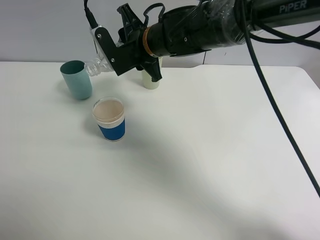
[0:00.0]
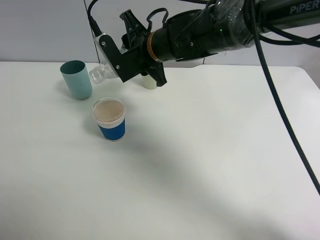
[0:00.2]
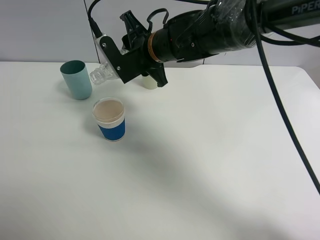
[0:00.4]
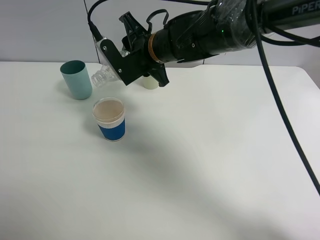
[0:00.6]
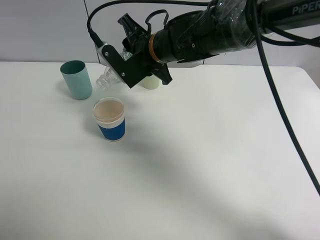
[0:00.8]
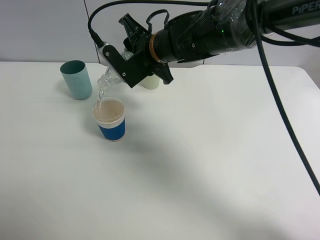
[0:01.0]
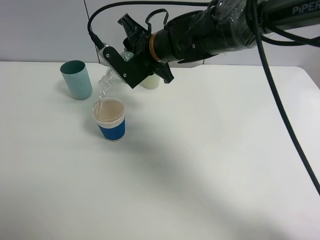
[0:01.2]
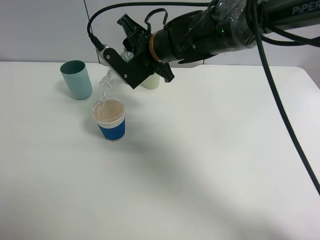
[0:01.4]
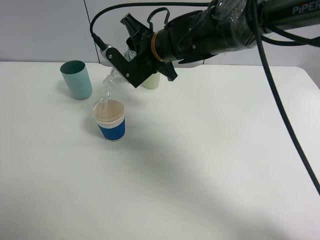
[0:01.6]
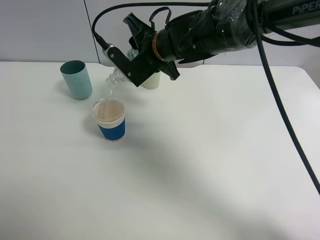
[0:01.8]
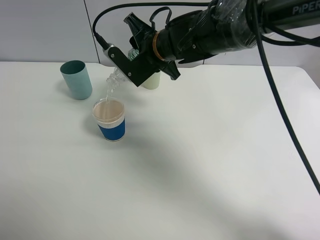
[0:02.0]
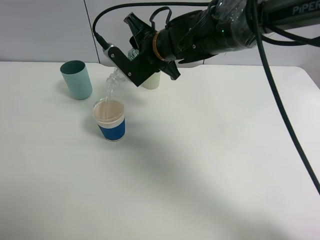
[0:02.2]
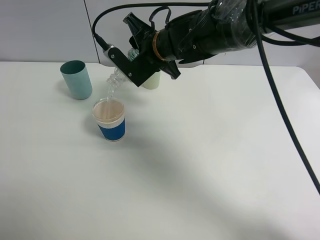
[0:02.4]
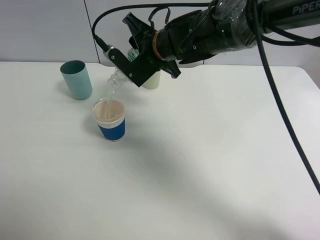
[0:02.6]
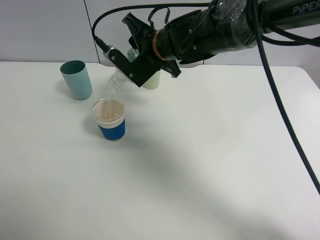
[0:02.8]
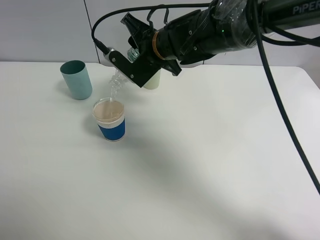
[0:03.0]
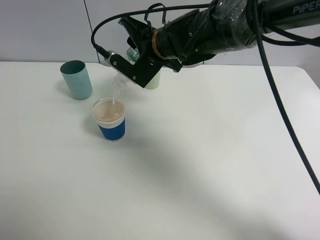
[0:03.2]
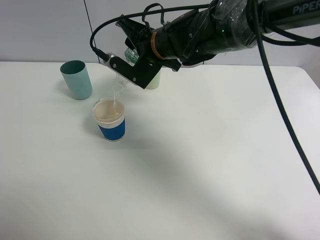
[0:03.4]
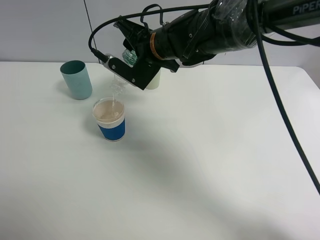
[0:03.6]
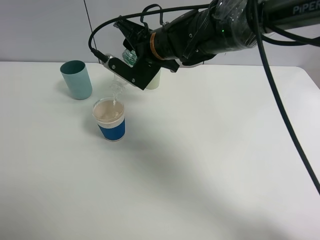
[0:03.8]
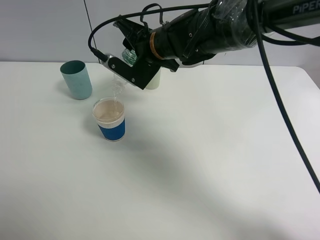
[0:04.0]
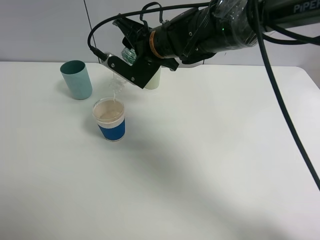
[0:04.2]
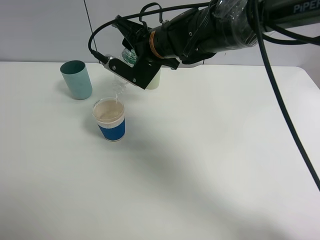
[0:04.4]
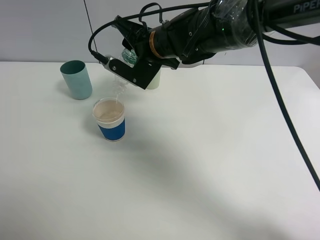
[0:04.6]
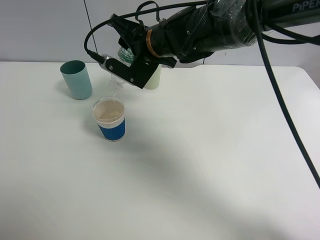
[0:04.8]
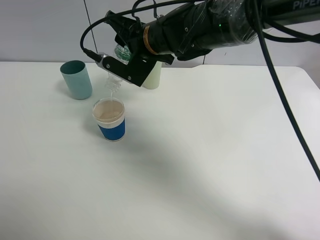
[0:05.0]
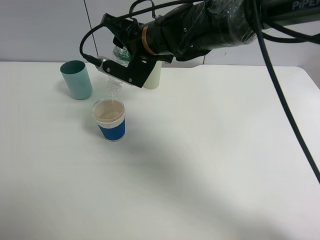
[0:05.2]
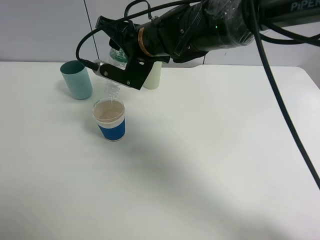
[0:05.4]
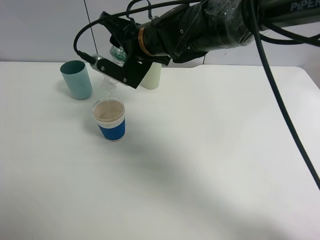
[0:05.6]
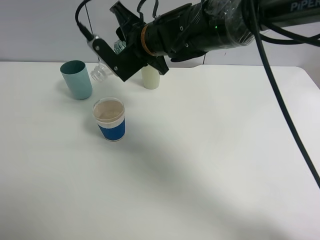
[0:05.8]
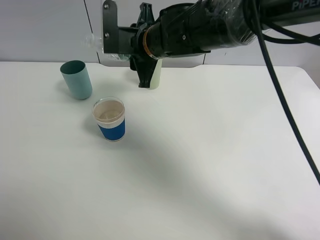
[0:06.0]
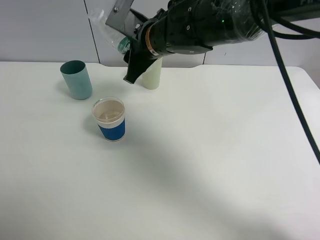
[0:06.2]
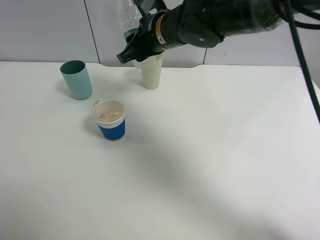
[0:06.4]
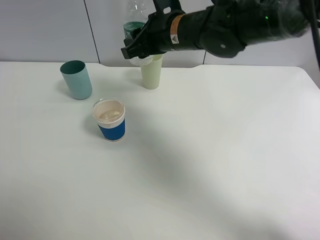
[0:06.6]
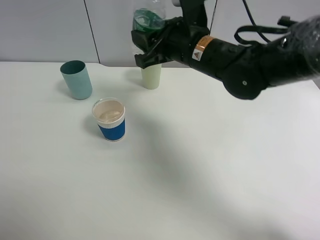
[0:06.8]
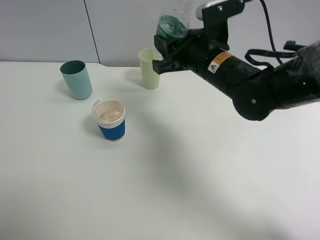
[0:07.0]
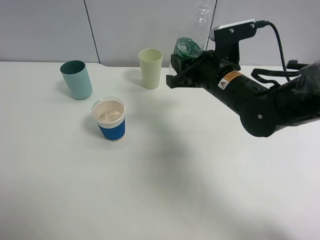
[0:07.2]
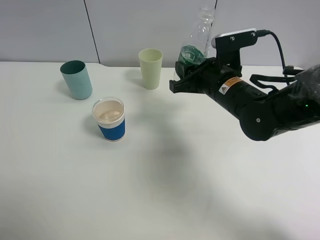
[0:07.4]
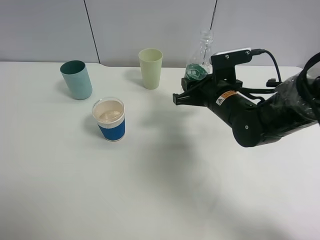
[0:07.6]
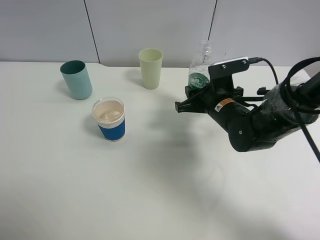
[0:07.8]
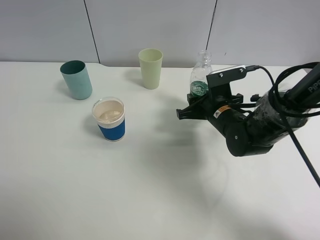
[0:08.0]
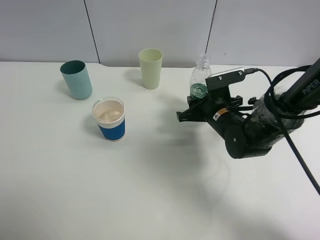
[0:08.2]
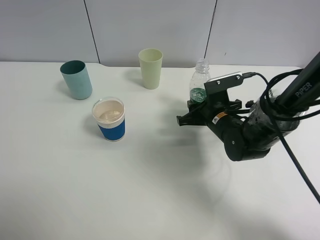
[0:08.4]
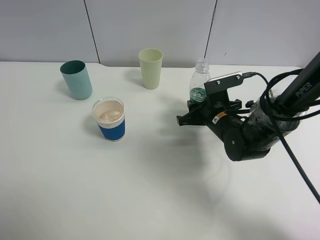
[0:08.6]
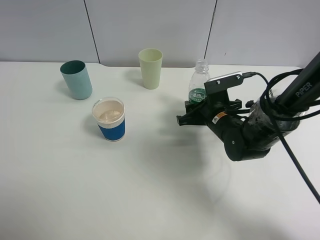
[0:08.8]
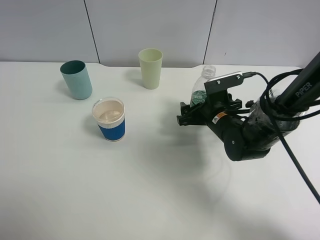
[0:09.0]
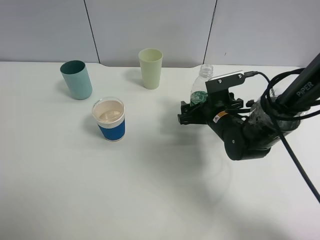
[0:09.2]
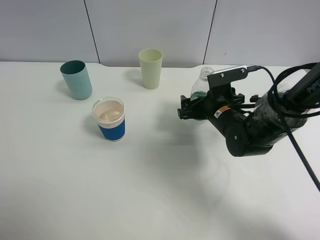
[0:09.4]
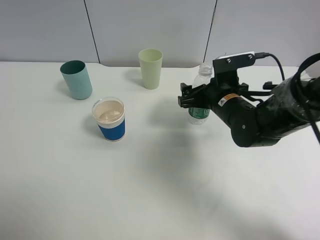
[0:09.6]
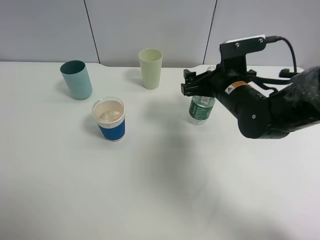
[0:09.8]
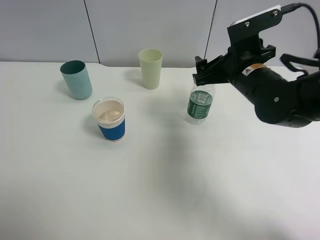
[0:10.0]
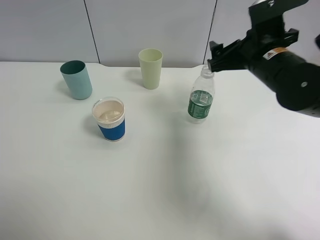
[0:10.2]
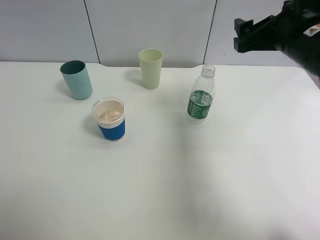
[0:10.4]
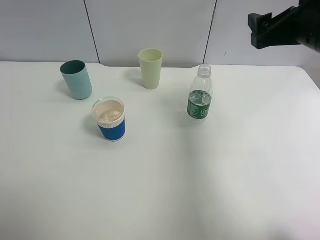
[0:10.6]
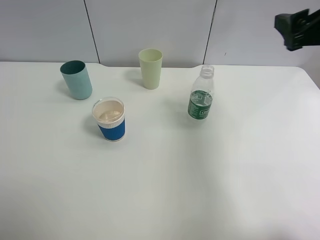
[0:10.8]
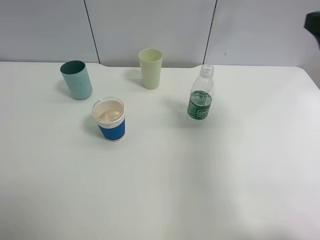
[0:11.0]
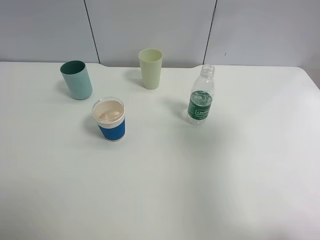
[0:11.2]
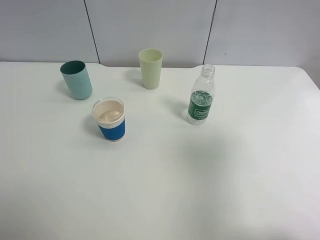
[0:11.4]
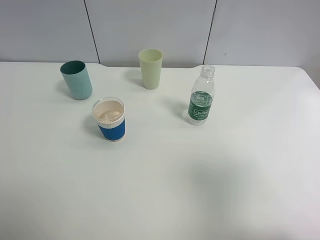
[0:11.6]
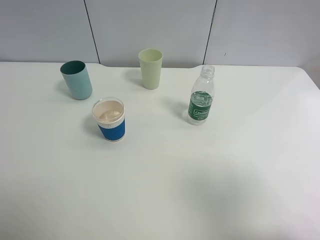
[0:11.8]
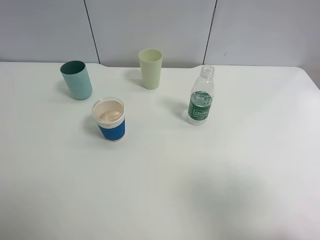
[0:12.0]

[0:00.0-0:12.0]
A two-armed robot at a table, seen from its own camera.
Task of the whole recording: use a clamp to hold the bottle of the drink, pour the beverage into a random cup, then clamp the cup containing the drink and pour the drink into another random cup.
Step, 0:00.0 to 0:06.0: Pour water into the paper cup with right gripper.
Step, 0:06.2 to 0:09.8: Place the water bottle on the table with right gripper.
0:00.0 to 0:01.6: The grippers stay close to where they were, moving slightly.
0:01.6 to 0:04.4: The grippers stay close to where they were, moving slightly.
0:06.0 to 0:07.6: The right gripper goes some 15 cm to the right and downward.
0:07.6 to 0:09.0: The right gripper goes roughly 5 cm downward, and opens its fingers.
0:09.0 to 0:10.4: The right gripper moves upward and to the right, roughly 20 cm.
0:10.4 to 0:12.0: The right gripper heads backward, covering about 30 cm.

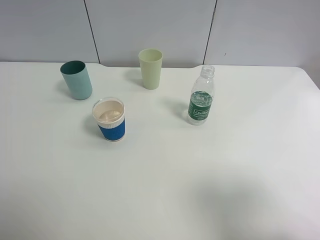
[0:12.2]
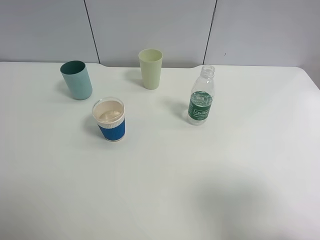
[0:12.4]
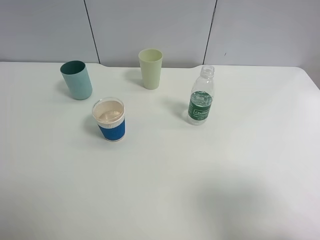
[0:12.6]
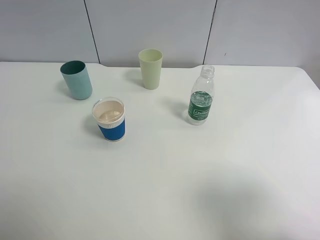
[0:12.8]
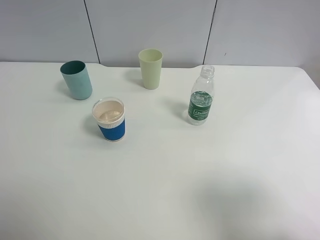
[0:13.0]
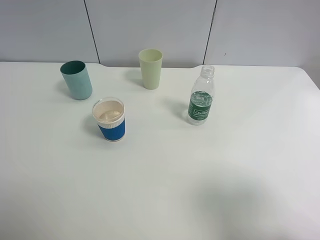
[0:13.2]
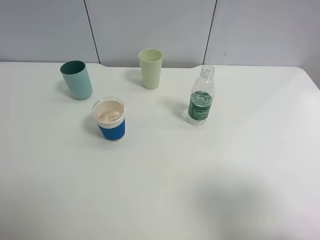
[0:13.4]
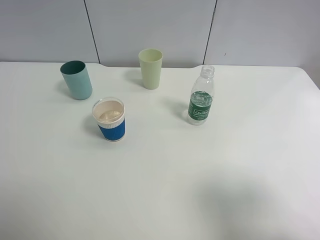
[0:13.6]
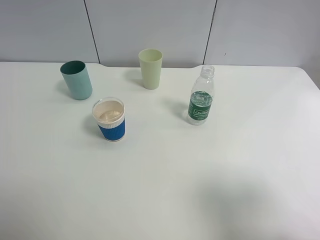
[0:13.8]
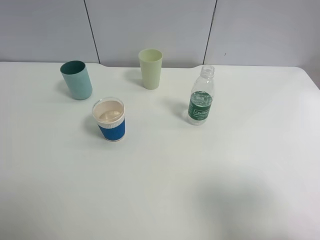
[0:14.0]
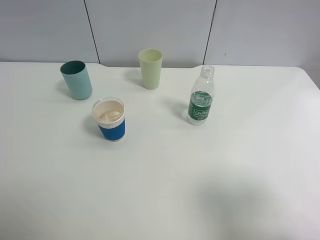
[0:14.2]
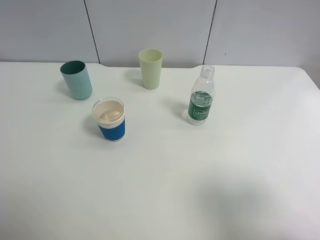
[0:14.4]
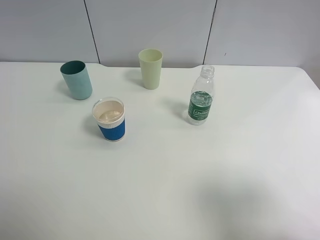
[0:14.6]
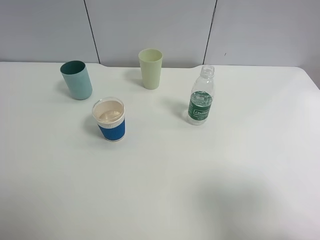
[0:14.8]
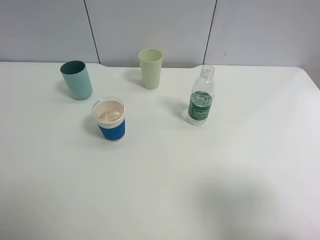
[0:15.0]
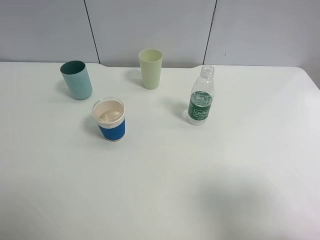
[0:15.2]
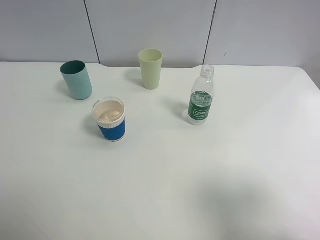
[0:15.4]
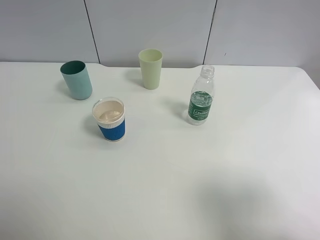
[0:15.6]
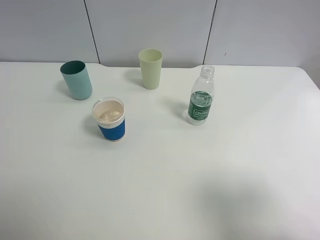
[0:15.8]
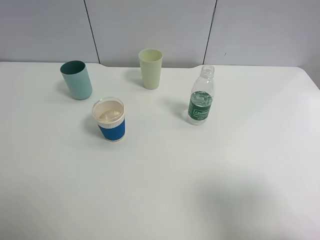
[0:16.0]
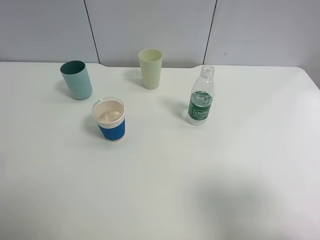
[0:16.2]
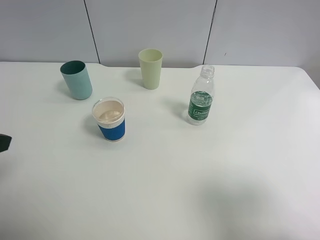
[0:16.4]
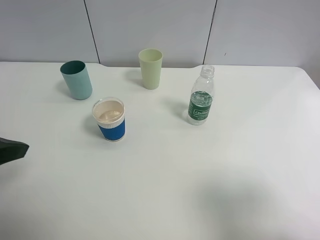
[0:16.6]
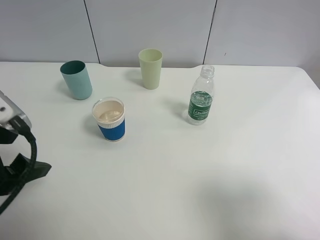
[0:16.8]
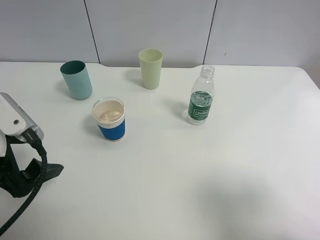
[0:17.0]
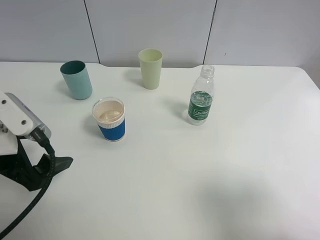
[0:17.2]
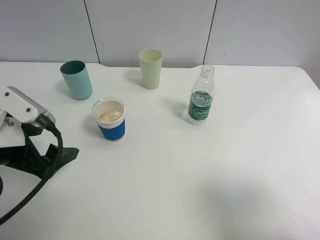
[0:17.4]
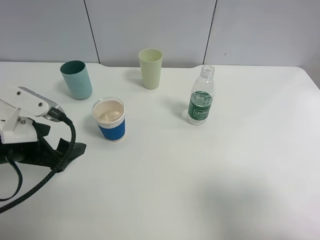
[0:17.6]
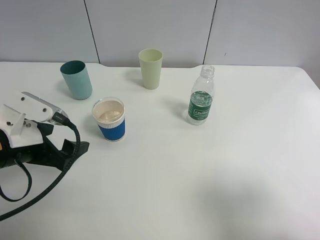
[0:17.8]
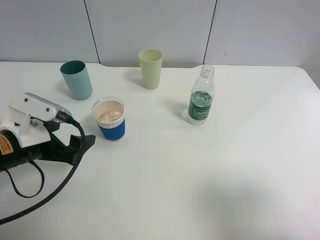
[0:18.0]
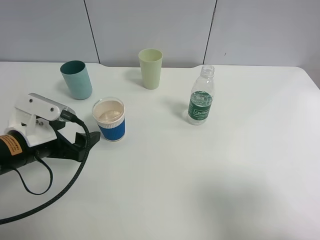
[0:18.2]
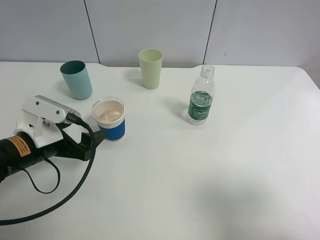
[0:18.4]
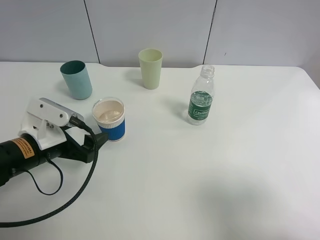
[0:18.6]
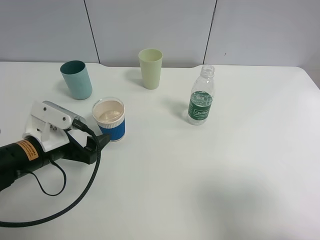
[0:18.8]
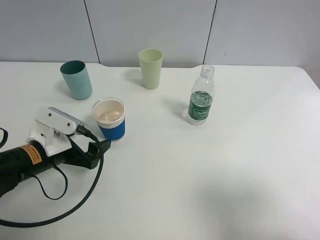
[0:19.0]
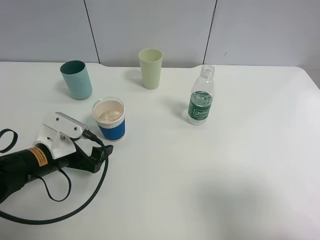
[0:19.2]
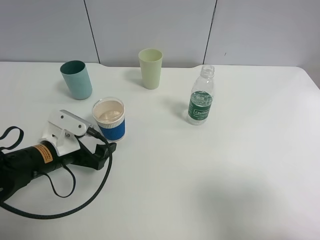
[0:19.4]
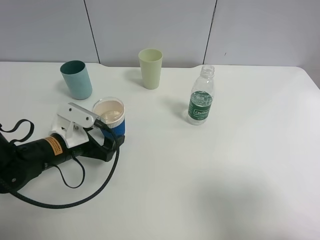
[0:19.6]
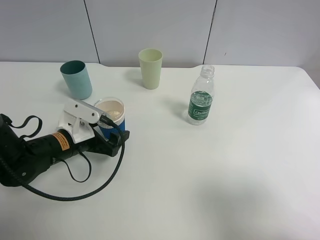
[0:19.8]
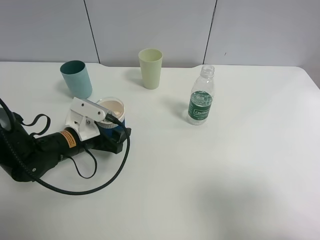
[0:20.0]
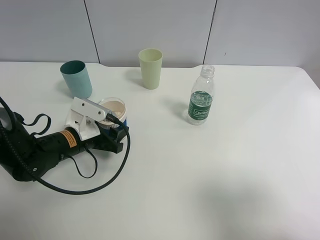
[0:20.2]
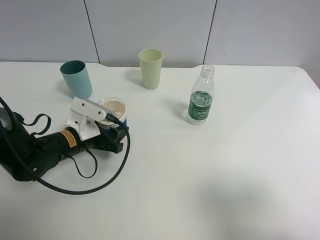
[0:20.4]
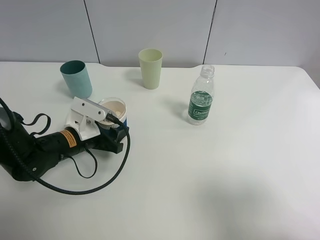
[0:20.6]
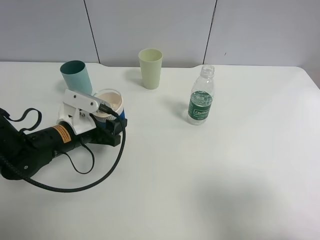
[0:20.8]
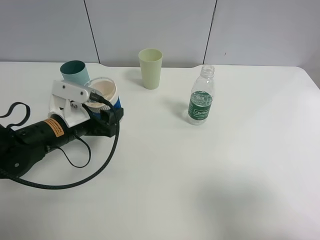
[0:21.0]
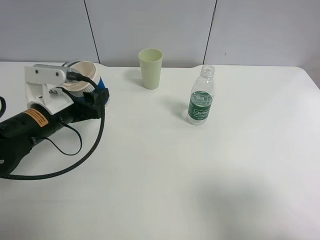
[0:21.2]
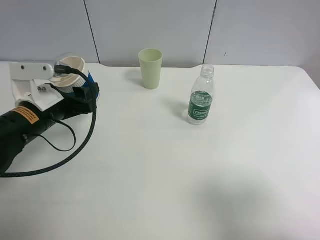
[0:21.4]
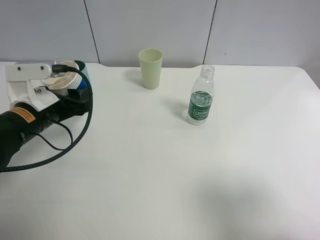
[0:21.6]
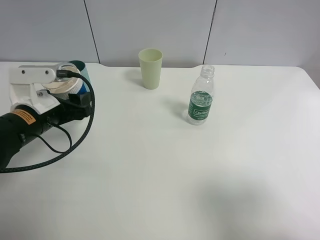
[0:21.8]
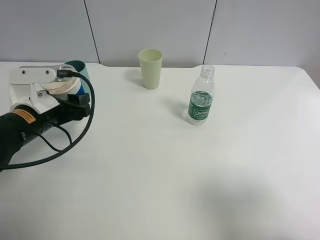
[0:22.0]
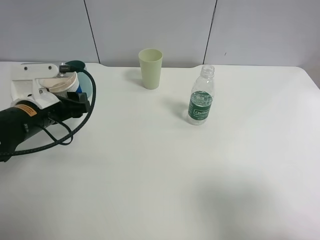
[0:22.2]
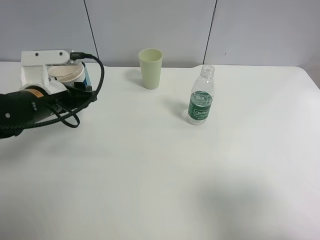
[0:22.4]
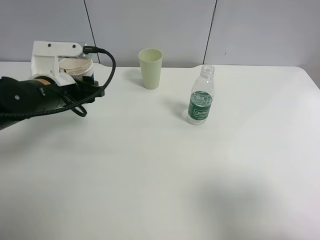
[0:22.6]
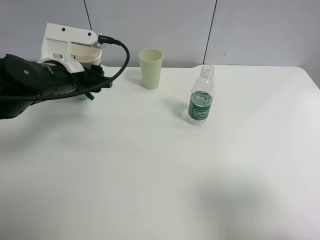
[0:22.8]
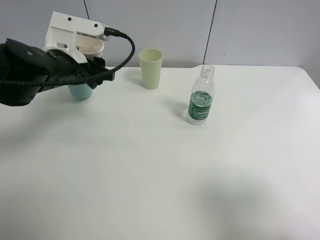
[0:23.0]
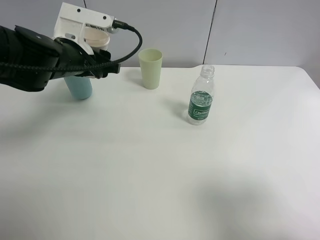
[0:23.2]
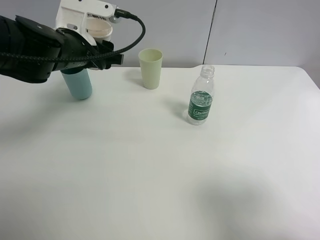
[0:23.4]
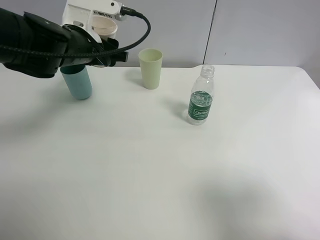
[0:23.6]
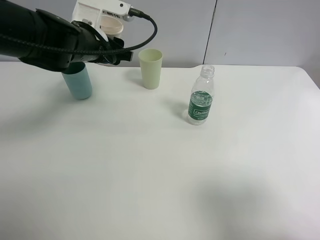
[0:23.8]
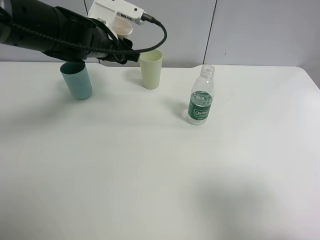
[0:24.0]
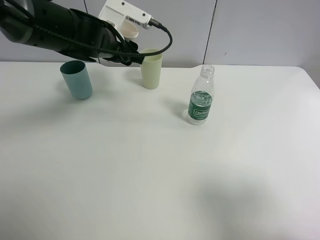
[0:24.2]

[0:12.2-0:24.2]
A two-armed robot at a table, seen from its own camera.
Task of the whole recording: use a clamp to hold the bottle of the drink, pour the beverage into a random cup, then clamp the cup containing the drink and pour the drink into another random cup.
Step, 0:12.2 to 0:20.8: Pick up the paper cup with left gripper.
0:12.2 to 0:15.2: Both grippers stay about where they are.
0:15.2 to 0:16.6: The left gripper is displaced forward by about 10 cm.
0:16.6 to 0:18.2: The left gripper heads downward and forward, covering approximately 15 cm.
0:18.2 to 0:19.8: The left gripper is displaced downward and forward by approximately 10 cm.
0:19.8 to 0:21.2: The left gripper goes some 5 cm upward, and closes up.
0:22.6 to 0:24.2: The left gripper goes approximately 15 cm forward and to the right.
